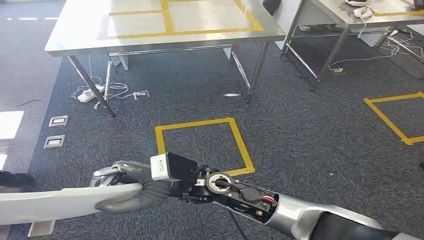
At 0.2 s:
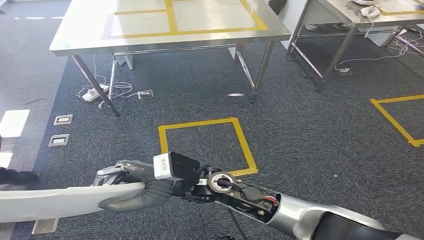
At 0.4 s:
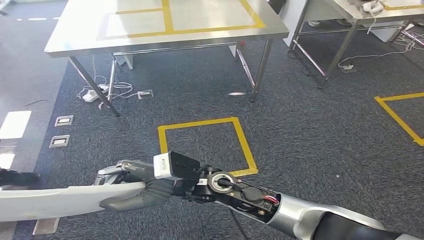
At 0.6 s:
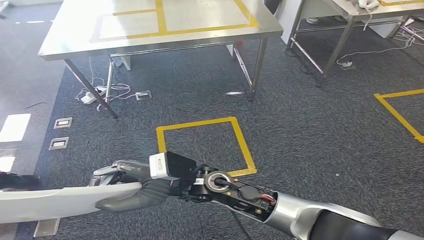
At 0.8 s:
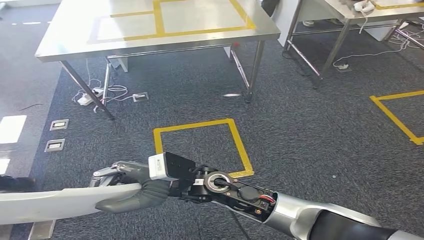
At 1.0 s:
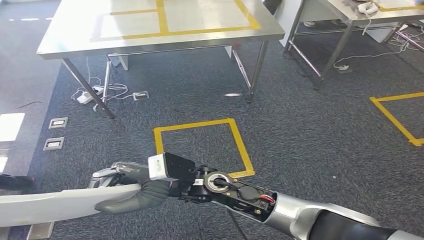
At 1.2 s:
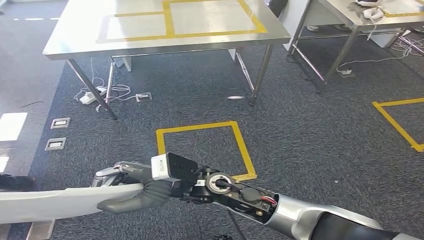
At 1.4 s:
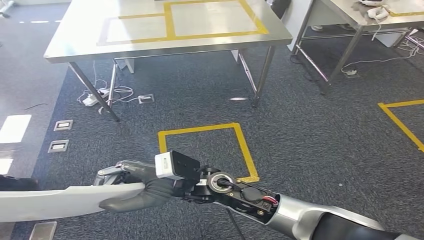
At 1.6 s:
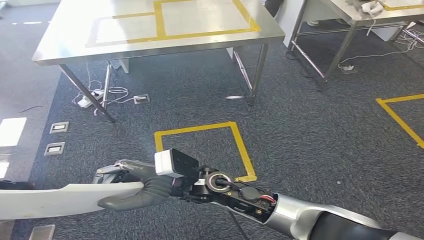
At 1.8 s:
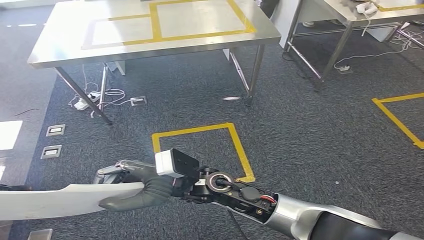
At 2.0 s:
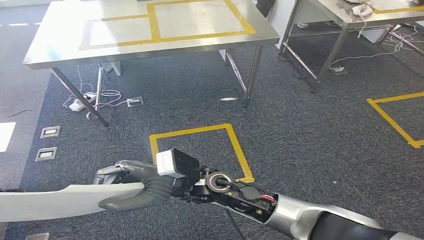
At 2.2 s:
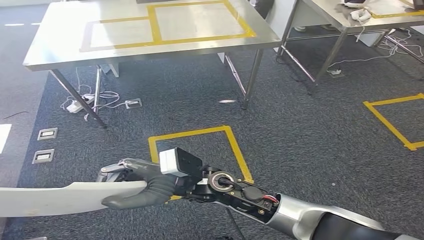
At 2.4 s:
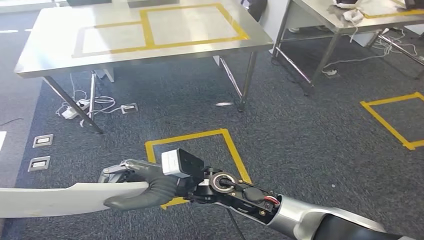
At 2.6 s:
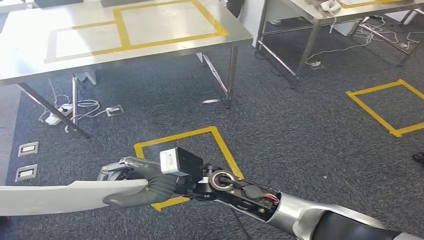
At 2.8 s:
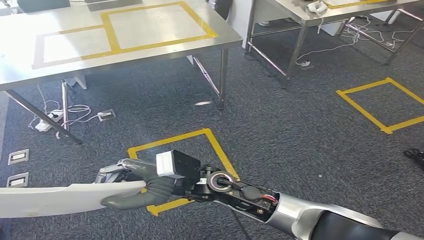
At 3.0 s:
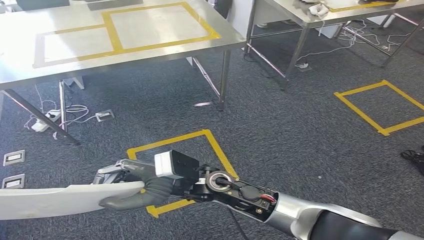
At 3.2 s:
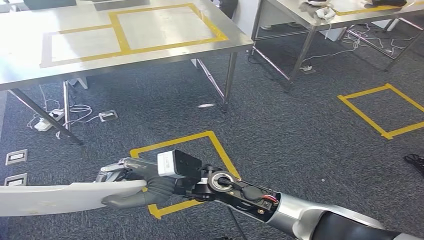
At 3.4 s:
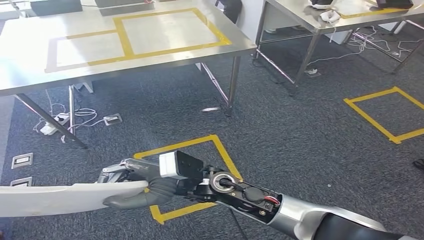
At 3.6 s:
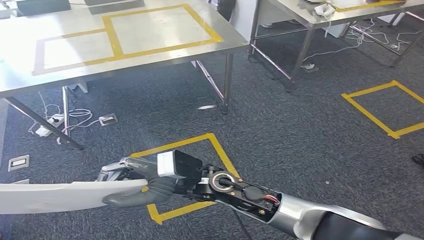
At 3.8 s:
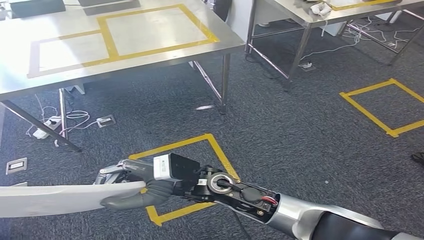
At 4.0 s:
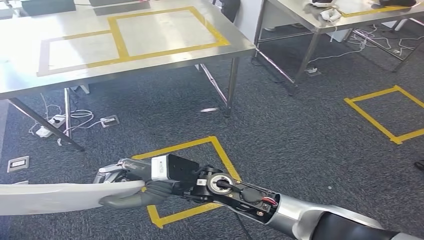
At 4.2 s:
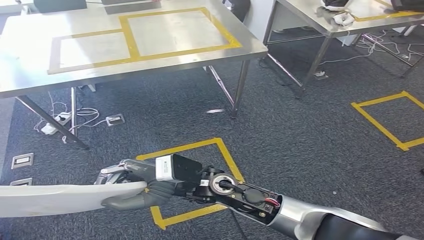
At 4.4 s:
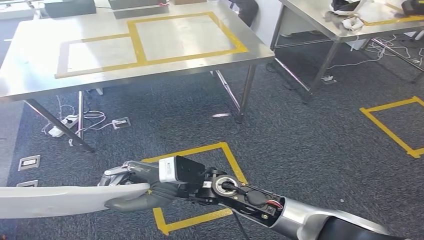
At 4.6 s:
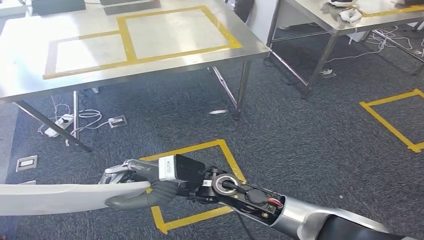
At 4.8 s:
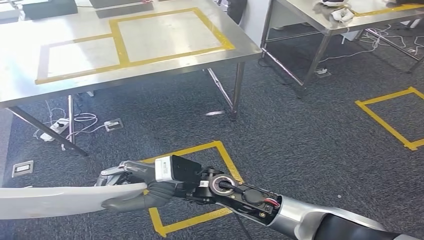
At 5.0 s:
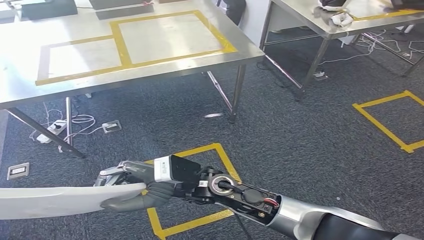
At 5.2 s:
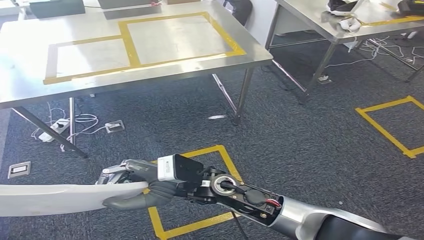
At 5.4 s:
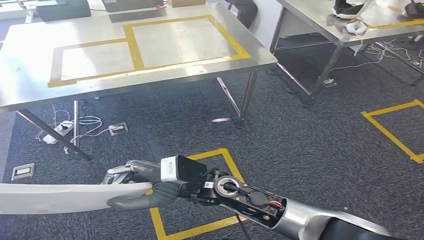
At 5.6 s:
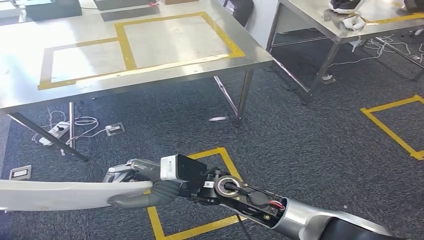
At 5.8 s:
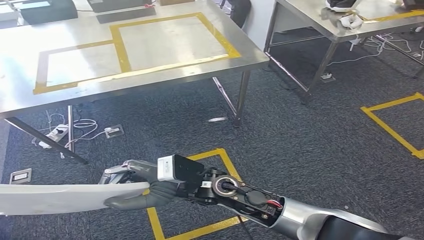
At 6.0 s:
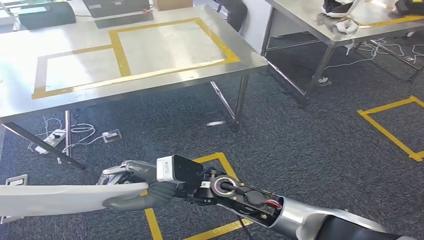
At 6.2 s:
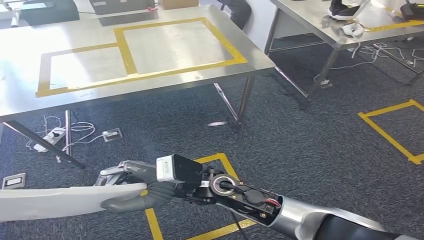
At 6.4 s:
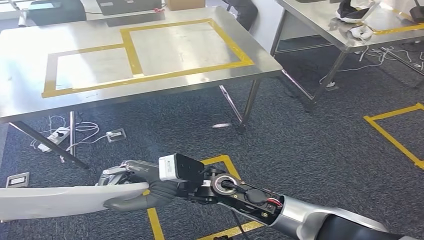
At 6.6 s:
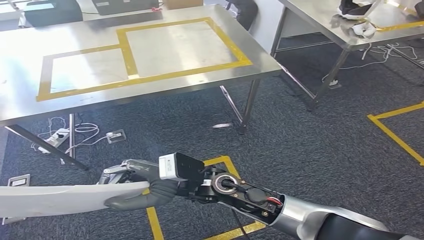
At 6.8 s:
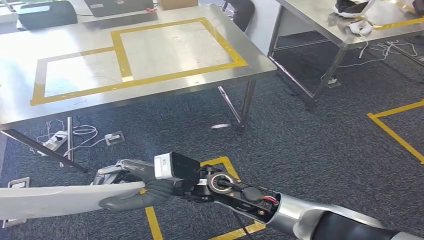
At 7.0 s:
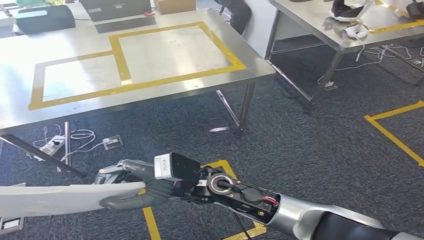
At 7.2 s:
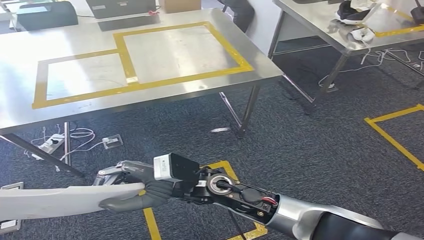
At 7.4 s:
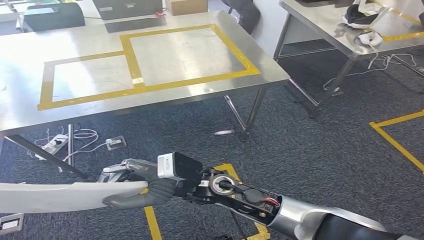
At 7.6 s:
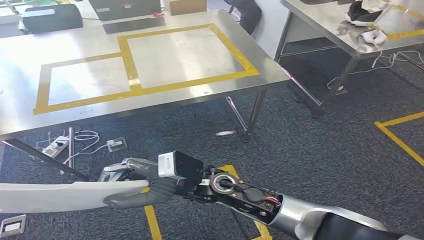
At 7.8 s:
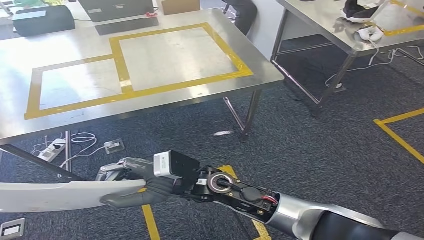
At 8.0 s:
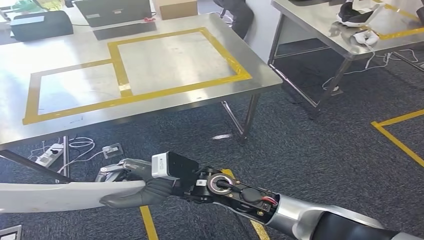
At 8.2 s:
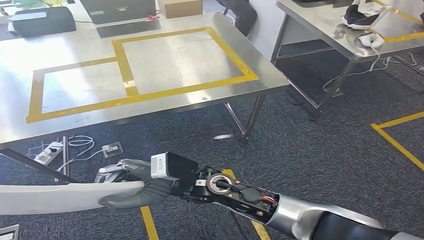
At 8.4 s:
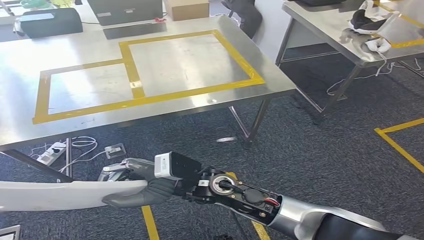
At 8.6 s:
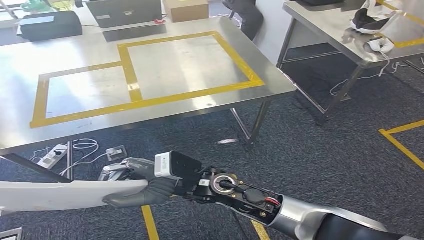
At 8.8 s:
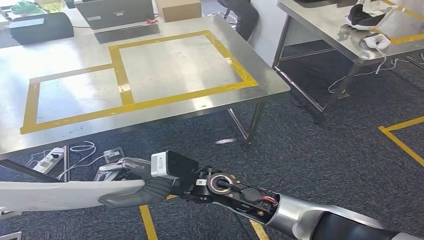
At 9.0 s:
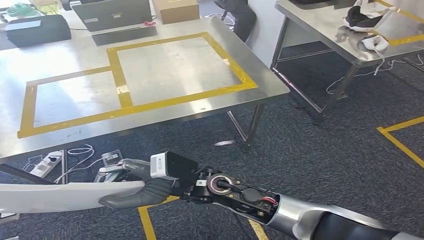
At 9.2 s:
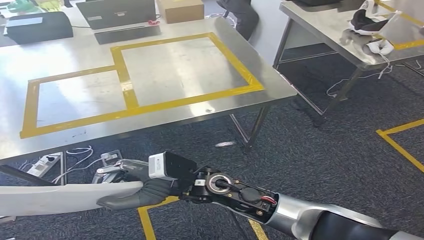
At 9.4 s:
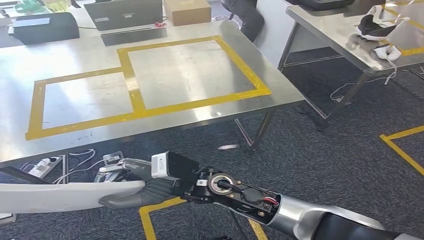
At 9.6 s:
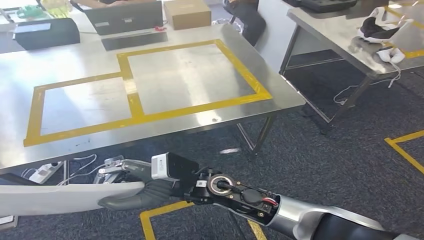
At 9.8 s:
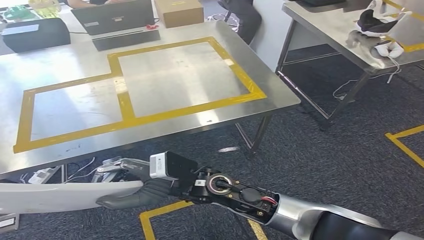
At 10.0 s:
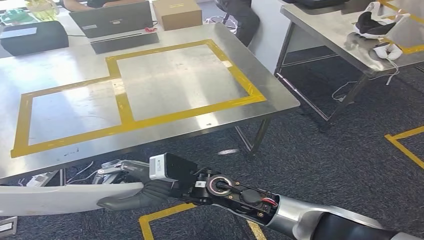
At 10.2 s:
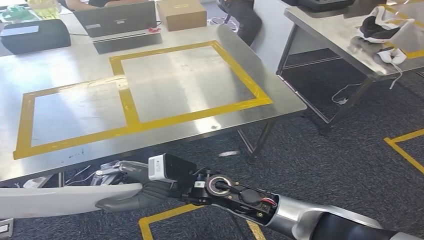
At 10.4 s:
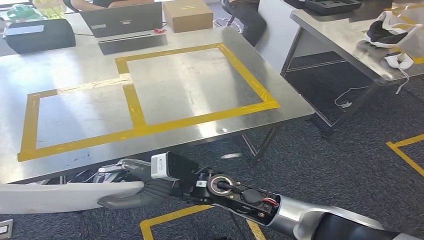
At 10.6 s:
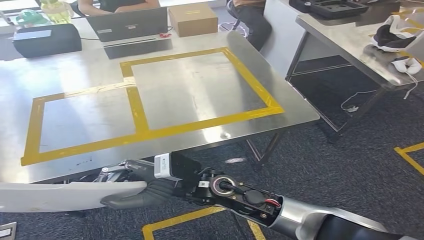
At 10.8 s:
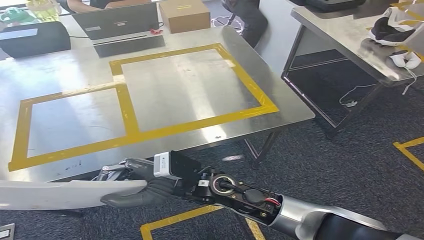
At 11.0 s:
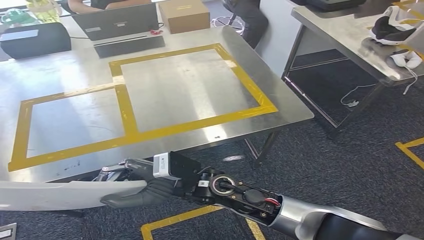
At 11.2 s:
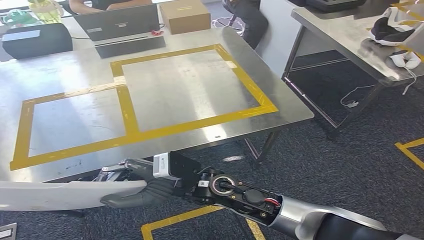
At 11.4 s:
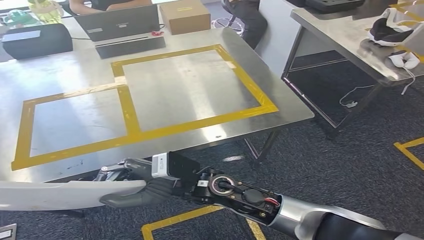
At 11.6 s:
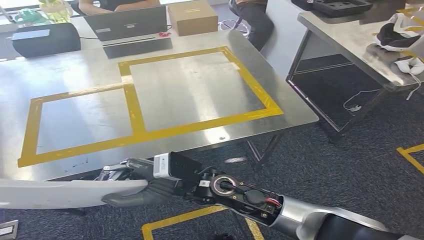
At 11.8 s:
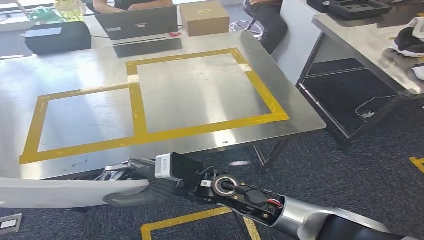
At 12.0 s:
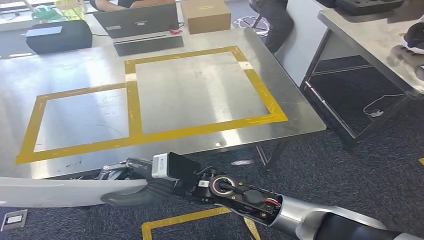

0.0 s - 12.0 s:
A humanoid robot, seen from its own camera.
Step, 0.0 s - 11.4 s: Move the small parts to the workbench.
0.0 s - 1.6 s: Neither hand changes place.

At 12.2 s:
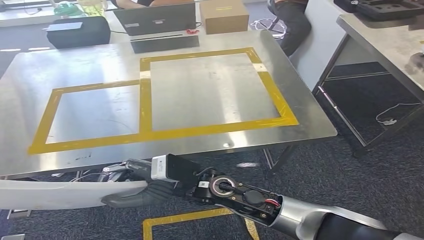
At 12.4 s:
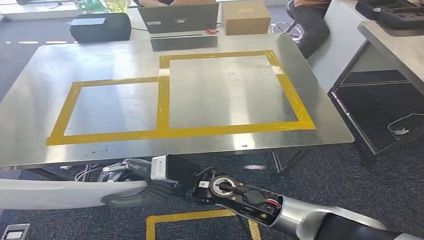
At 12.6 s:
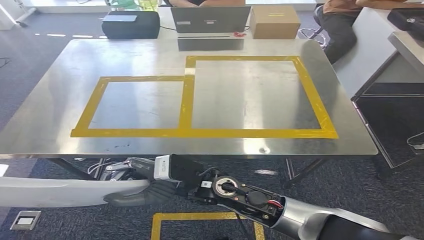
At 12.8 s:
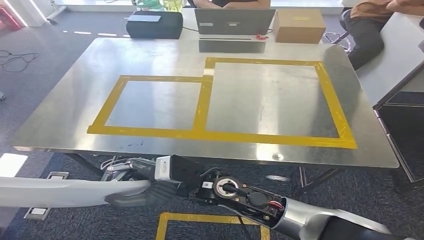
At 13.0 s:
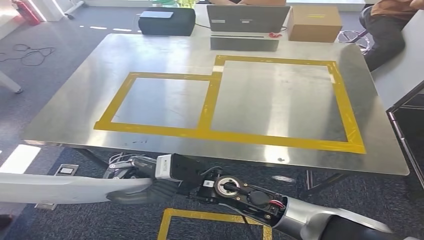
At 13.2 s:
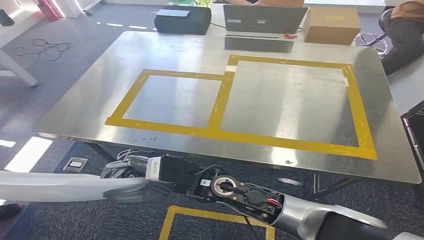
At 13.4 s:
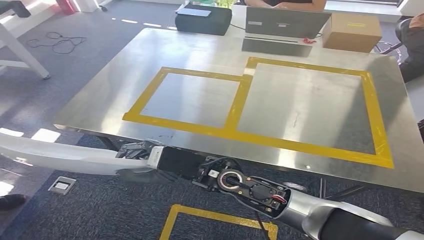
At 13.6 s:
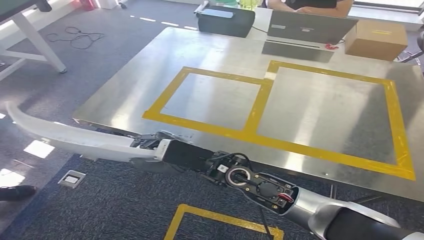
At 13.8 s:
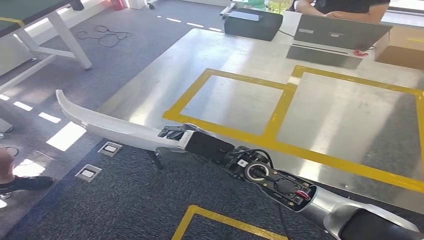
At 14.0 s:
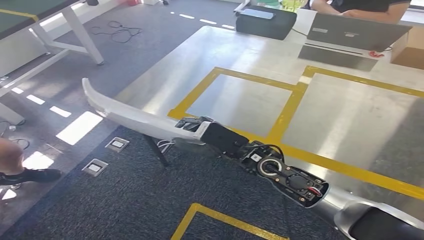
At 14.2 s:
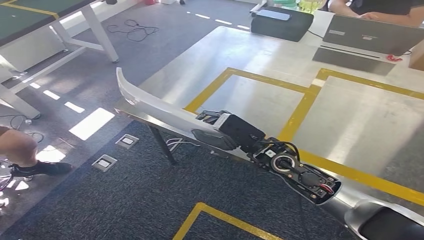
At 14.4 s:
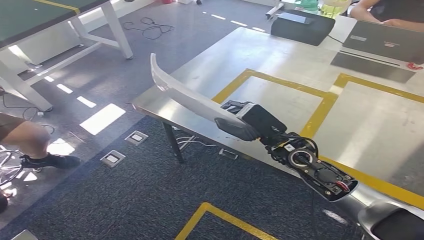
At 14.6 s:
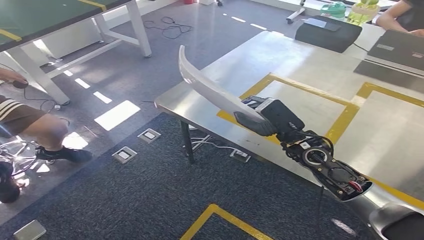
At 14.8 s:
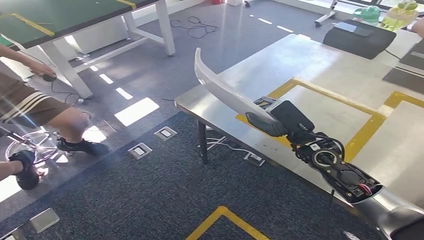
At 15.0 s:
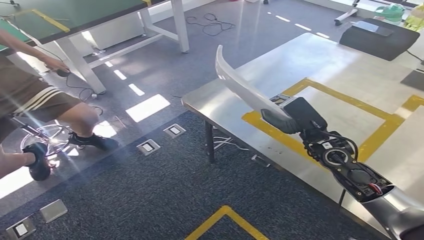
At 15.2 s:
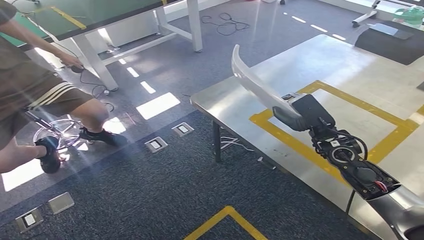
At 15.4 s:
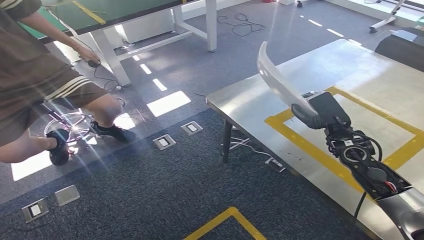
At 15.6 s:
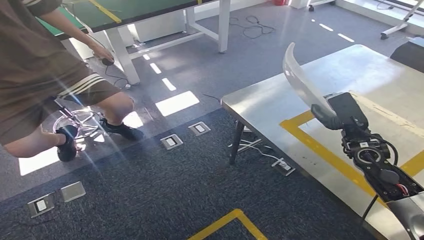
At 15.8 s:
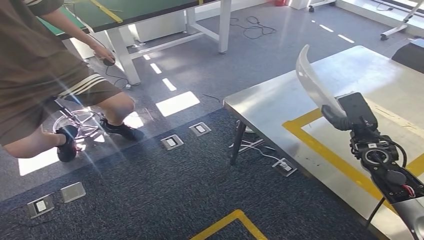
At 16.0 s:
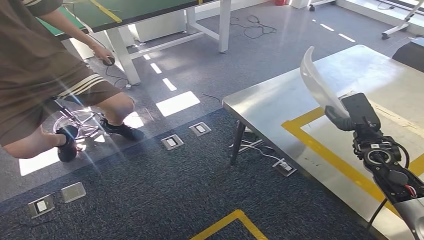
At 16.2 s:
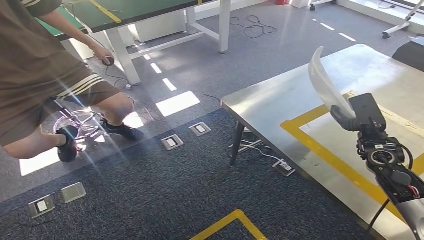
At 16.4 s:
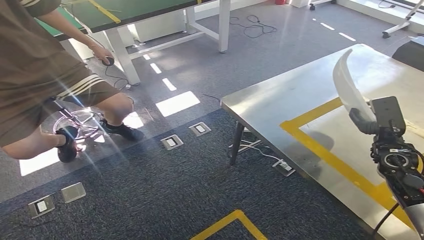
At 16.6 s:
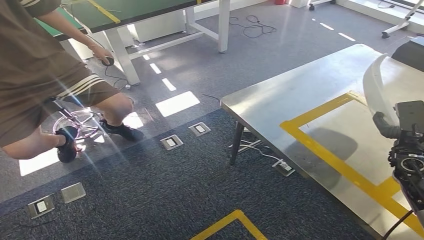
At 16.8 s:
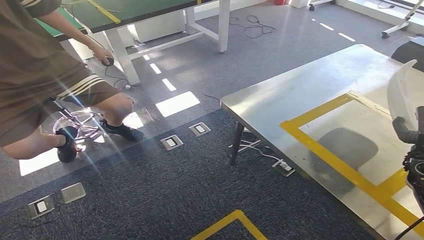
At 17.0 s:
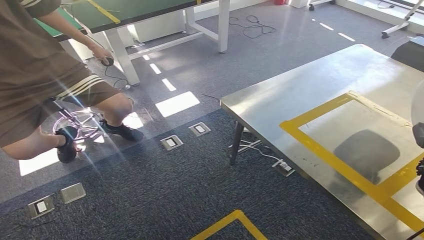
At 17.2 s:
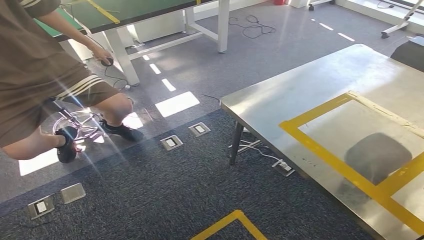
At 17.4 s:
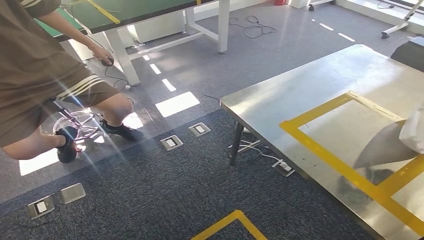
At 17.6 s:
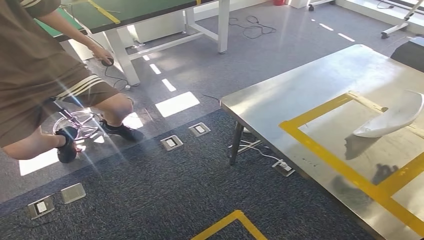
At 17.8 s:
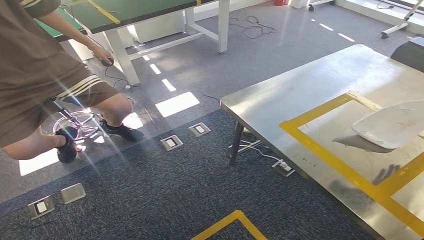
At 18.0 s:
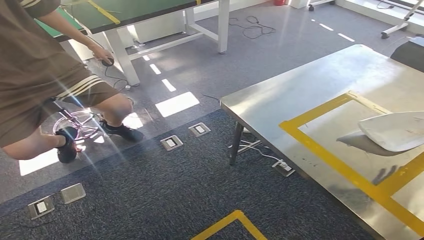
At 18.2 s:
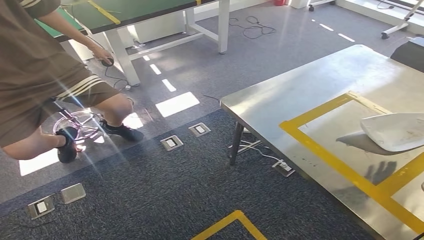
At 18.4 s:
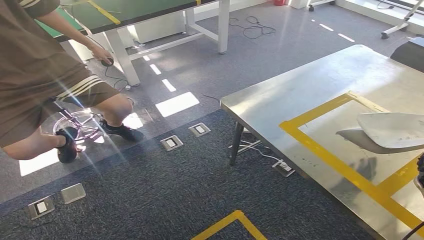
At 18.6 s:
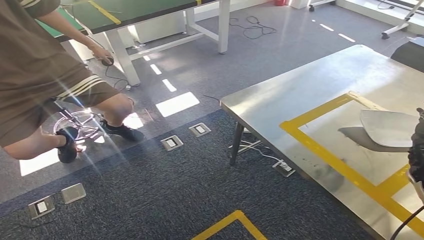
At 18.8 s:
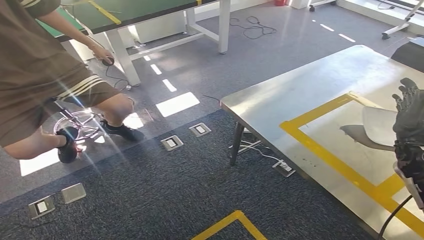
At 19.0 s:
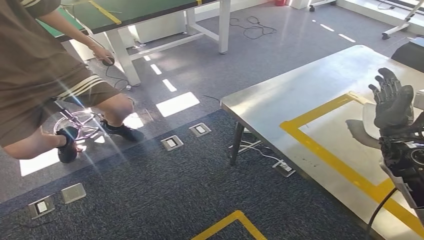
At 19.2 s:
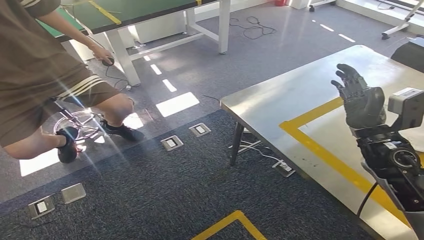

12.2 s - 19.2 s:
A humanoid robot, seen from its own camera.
16.4 s - 17.8 s: The right hand moves to the right and backward, about 15 cm.
17.8 s - 19.2 s: The right hand is displaced to the left, upward and forward by some 20 cm.
